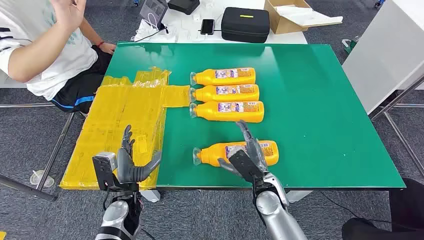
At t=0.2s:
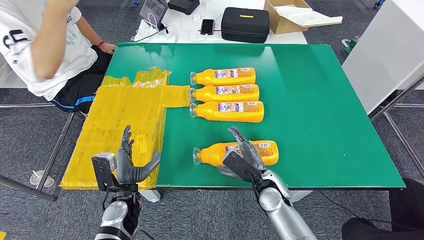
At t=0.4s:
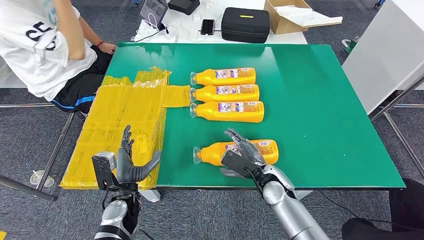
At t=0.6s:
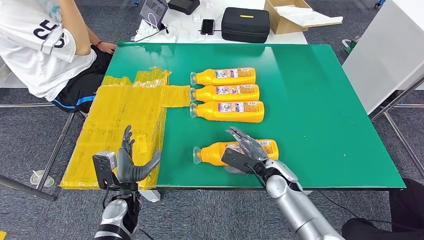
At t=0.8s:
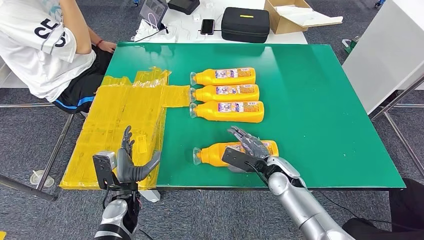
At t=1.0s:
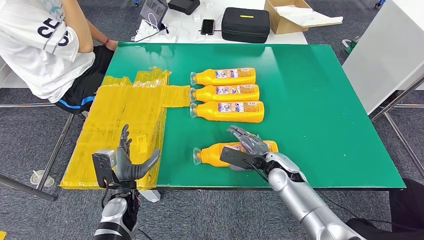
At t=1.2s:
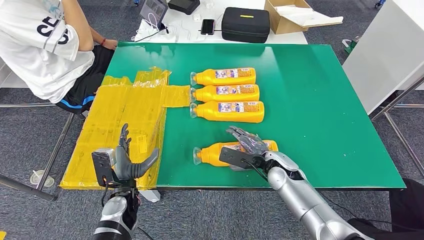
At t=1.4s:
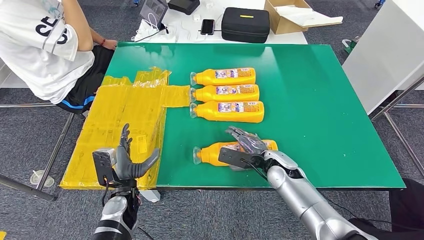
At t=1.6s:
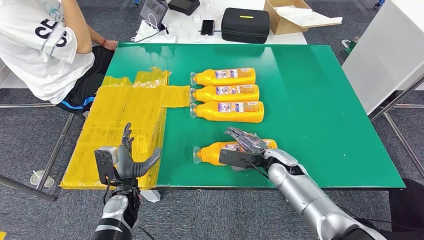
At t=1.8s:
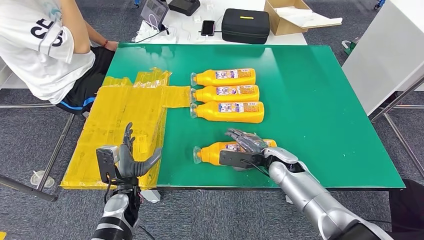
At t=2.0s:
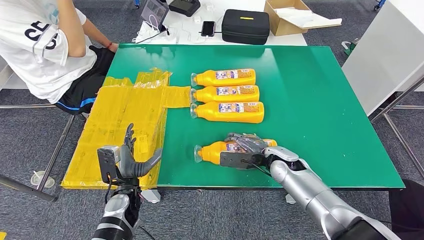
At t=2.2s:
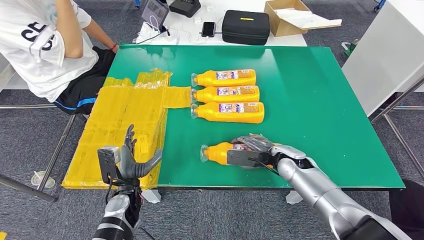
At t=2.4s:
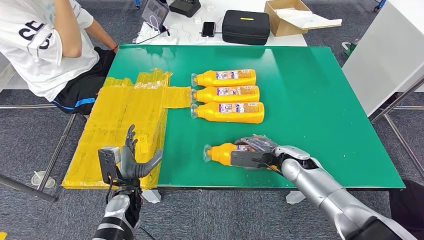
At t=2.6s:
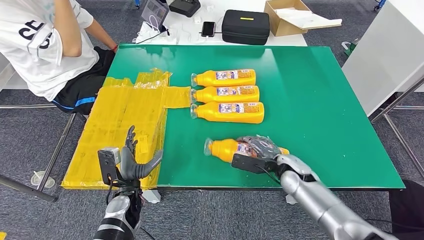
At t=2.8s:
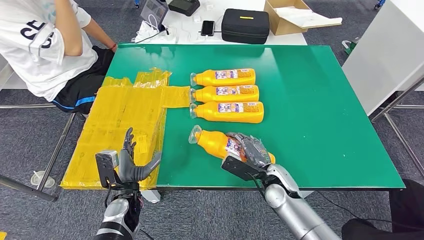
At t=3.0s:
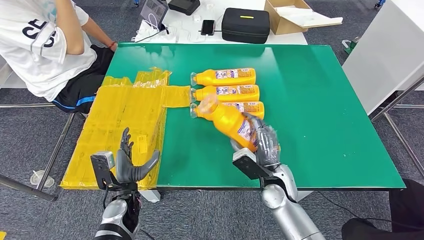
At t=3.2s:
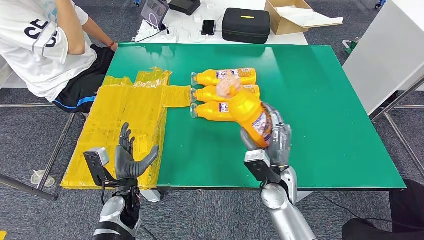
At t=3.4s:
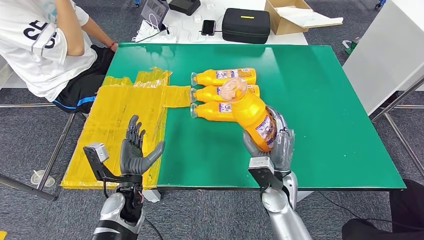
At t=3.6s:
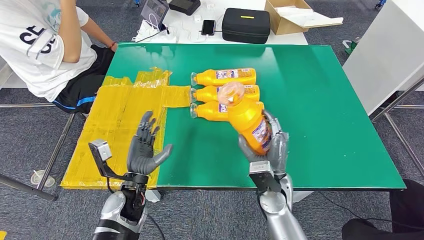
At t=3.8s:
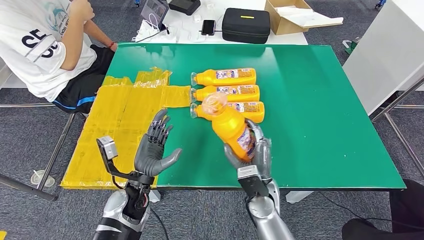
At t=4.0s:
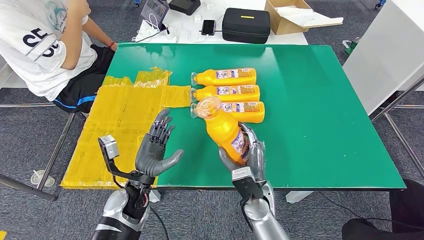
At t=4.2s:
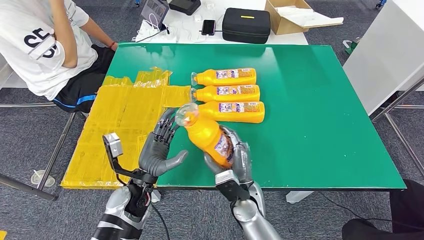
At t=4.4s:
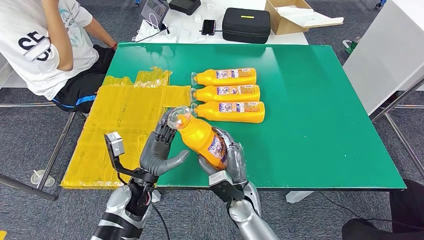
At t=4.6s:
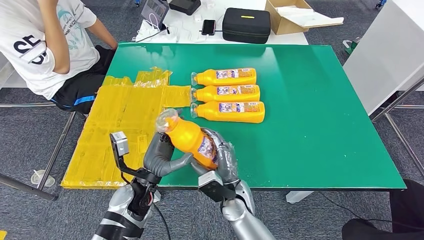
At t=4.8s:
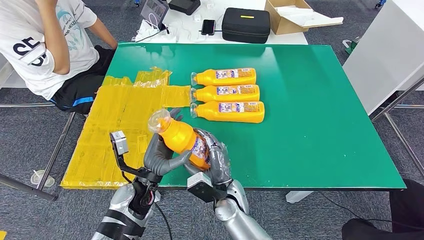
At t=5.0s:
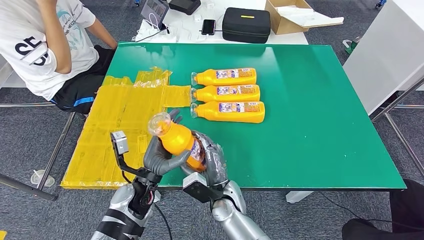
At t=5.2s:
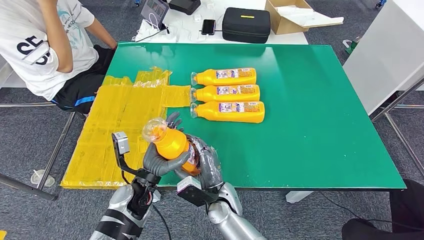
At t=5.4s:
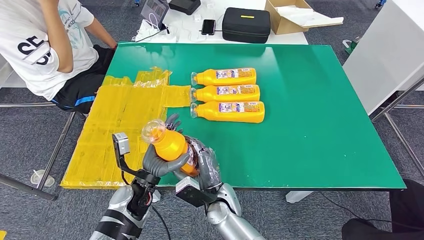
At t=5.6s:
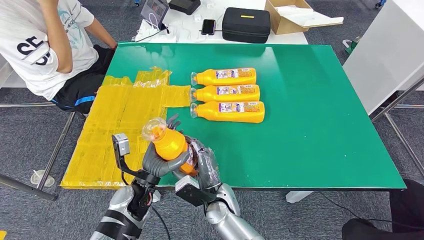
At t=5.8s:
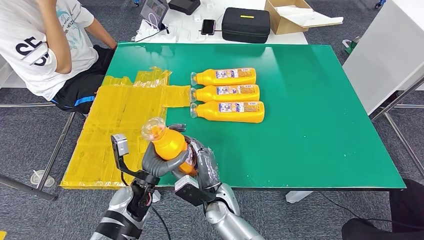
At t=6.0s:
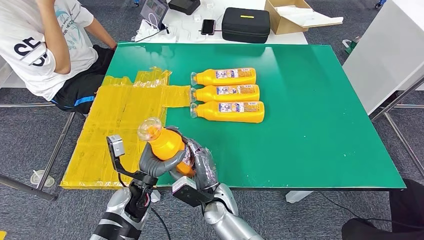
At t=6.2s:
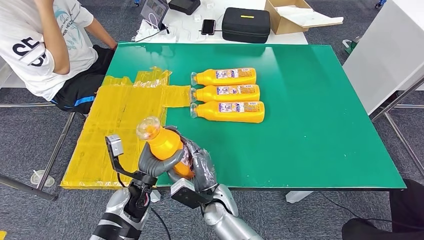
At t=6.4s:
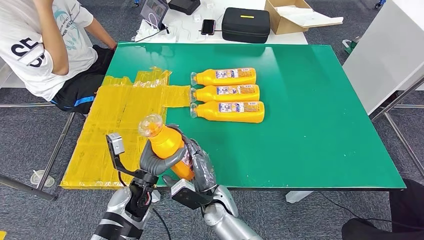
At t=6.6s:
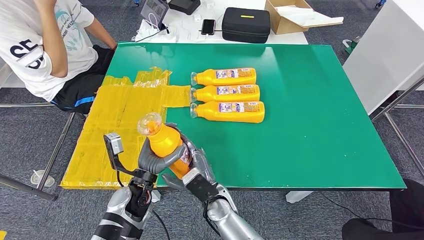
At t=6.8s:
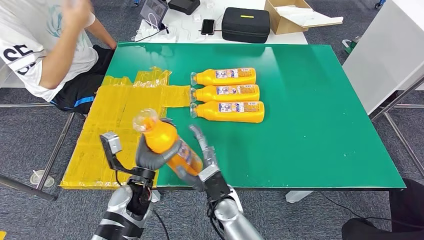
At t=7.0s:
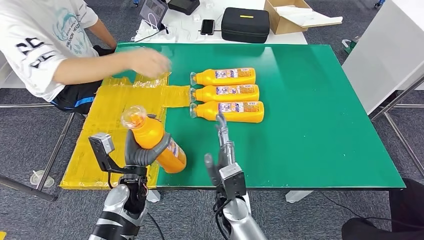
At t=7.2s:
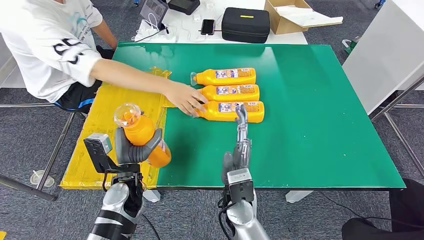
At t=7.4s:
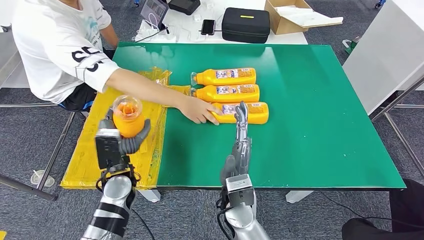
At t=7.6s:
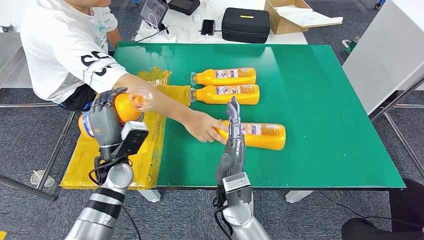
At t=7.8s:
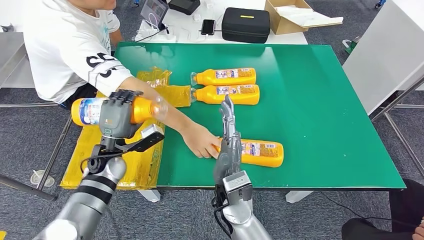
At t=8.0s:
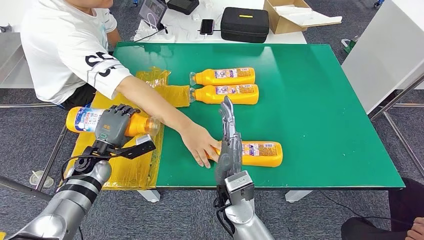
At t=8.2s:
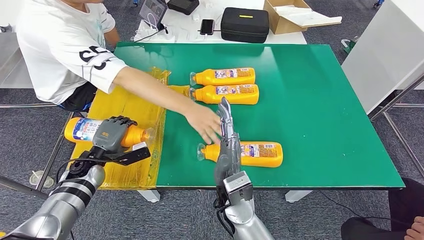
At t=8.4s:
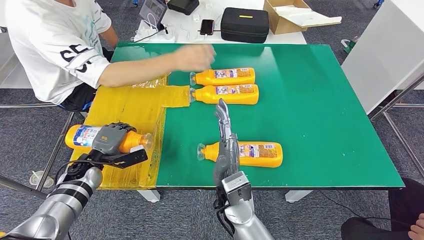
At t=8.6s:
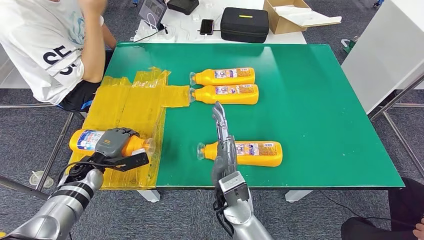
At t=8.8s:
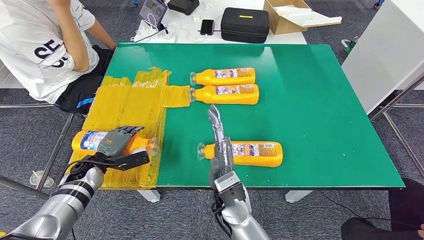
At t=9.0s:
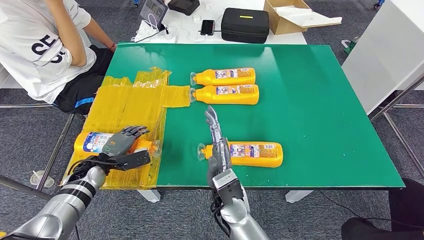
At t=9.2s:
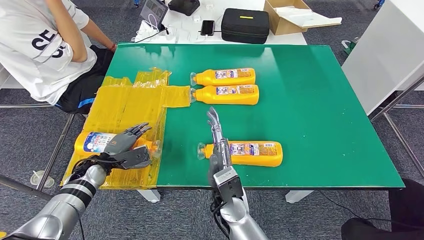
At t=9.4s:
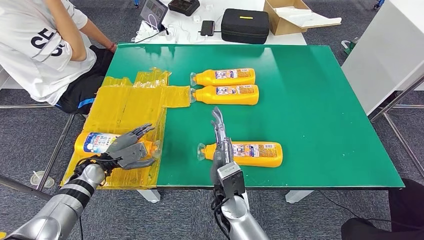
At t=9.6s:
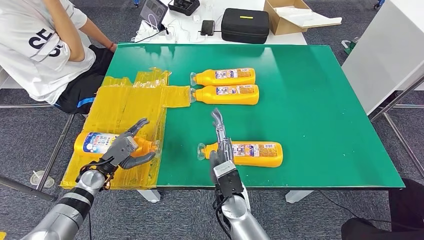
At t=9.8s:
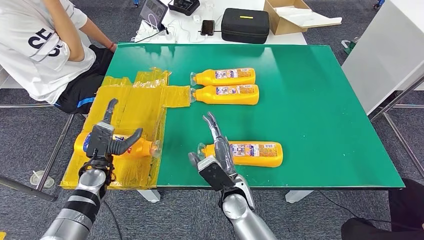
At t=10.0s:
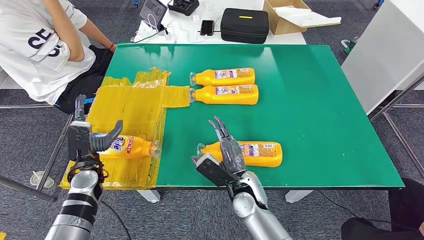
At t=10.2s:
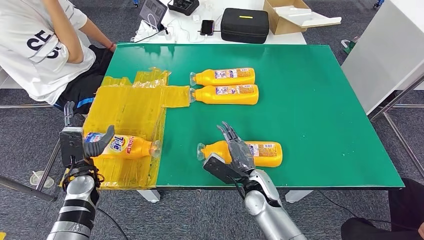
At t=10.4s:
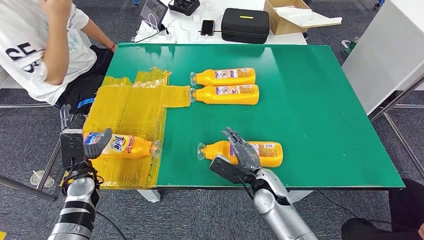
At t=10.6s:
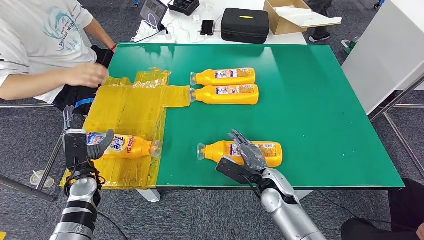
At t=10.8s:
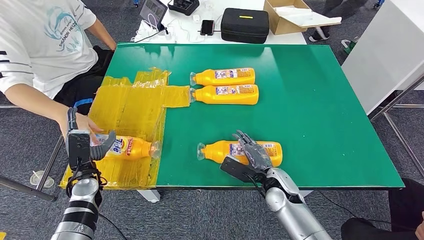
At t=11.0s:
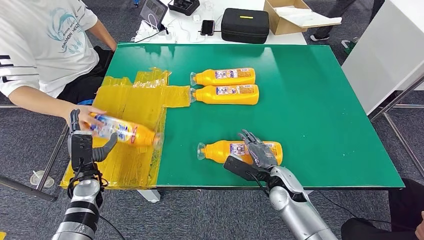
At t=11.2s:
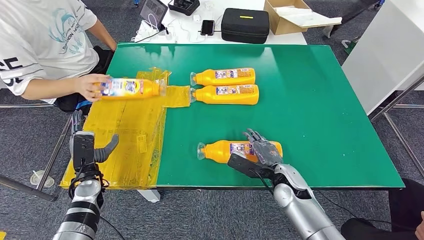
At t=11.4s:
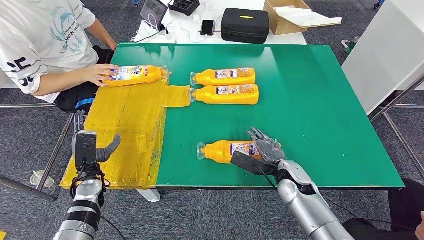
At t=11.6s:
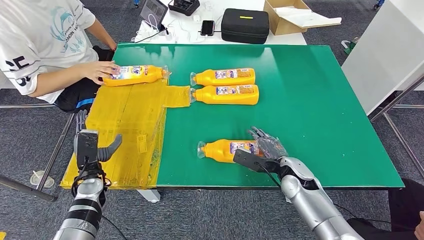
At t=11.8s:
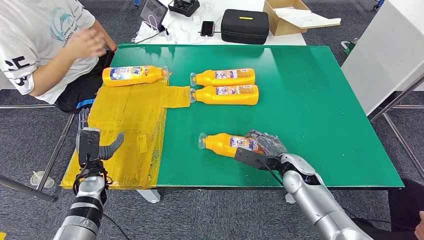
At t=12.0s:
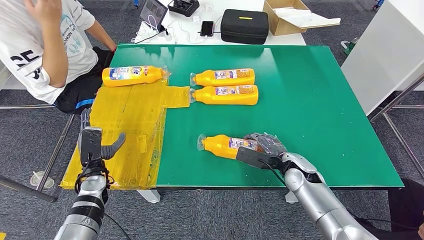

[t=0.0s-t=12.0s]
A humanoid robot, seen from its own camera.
Step, t=0.0s to t=3.2s: Take the fast-moving consumer goods bottle from the table.
Step, t=3.4s to t=10.0s: Flip the fast-moving consumer goods bottle to the front side.
t=1.6s to t=3.0s: The right hand moves backward, about 5 cm, and travels to the right and back again, some 5 cm each way.
t=3.0s to t=4.4s: The right hand shifts roughly 10 cm to the left; the left hand goes some 5 cm upward.
t=4.4s to t=6.0s: The right hand travels to the left by some 5 cm.
t=9.0s to t=10.4s: The right hand moves to the right, roughly 10 cm. Meanwhile the left hand ends up about 5 cm from where it was.

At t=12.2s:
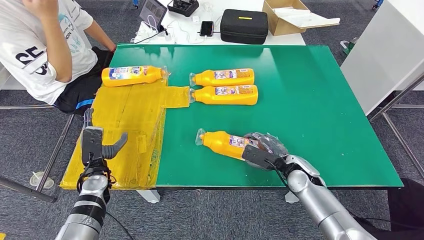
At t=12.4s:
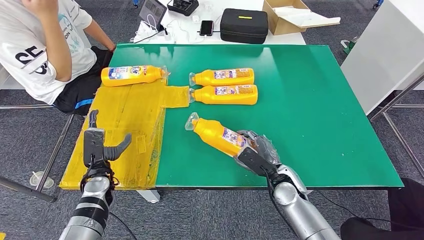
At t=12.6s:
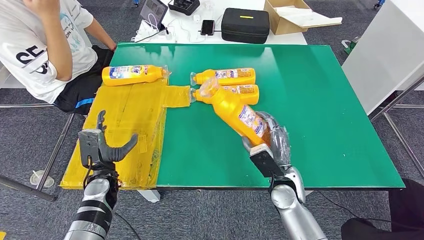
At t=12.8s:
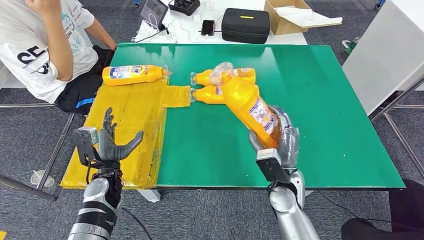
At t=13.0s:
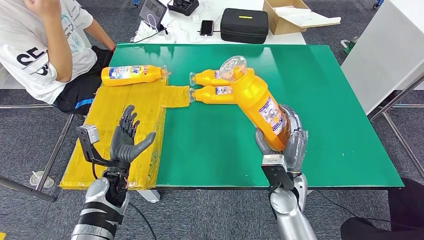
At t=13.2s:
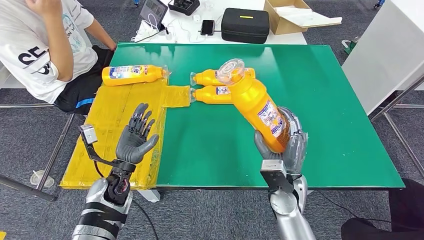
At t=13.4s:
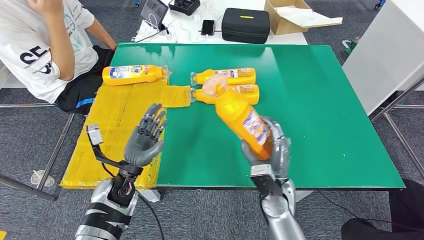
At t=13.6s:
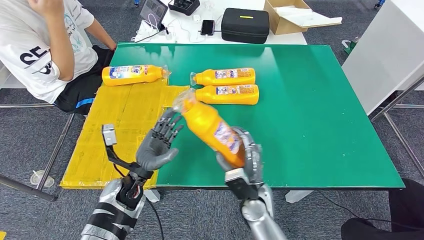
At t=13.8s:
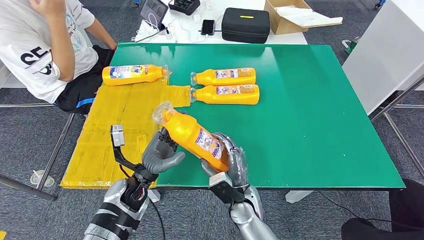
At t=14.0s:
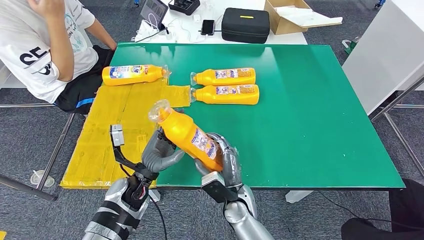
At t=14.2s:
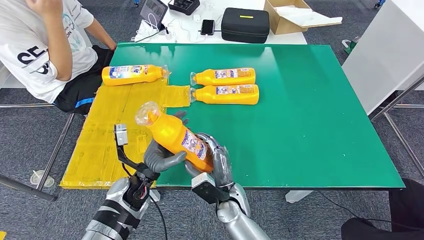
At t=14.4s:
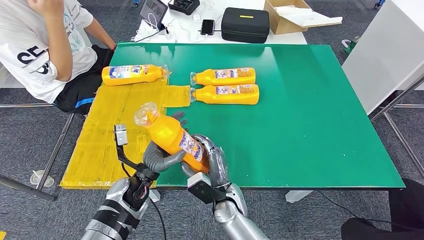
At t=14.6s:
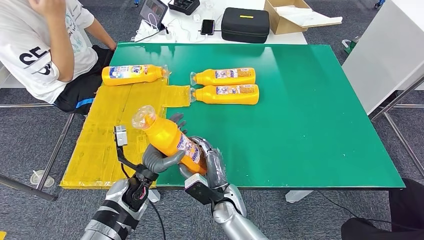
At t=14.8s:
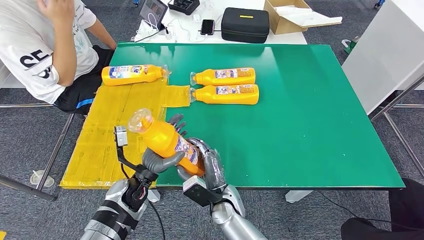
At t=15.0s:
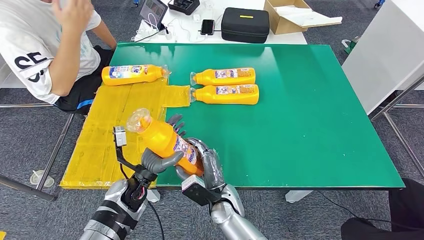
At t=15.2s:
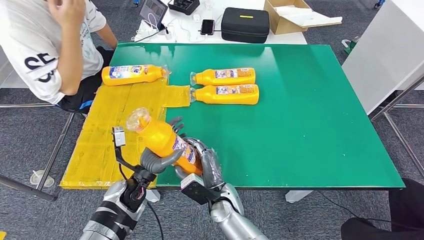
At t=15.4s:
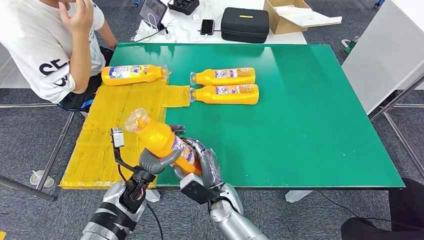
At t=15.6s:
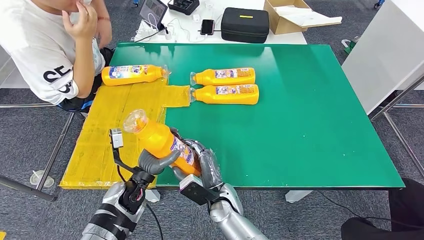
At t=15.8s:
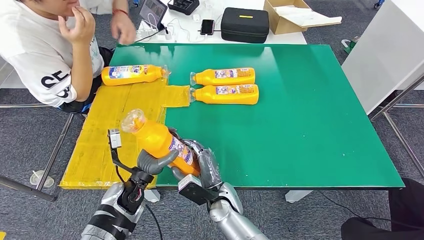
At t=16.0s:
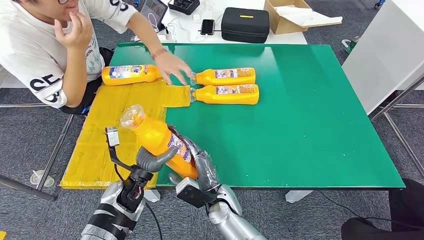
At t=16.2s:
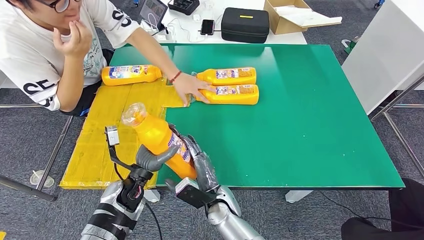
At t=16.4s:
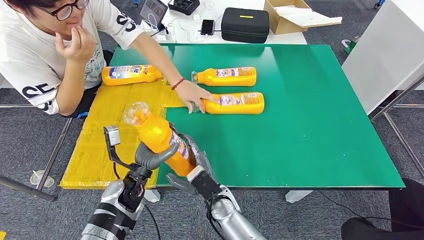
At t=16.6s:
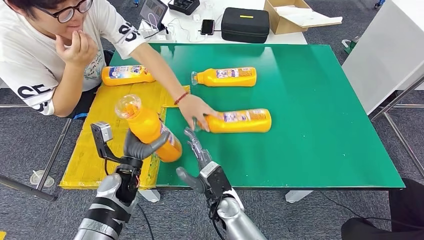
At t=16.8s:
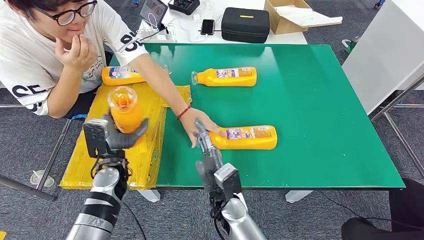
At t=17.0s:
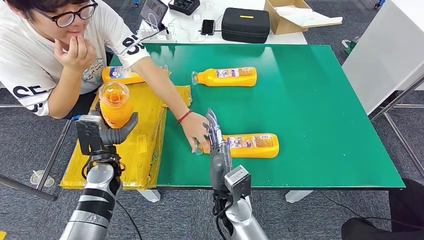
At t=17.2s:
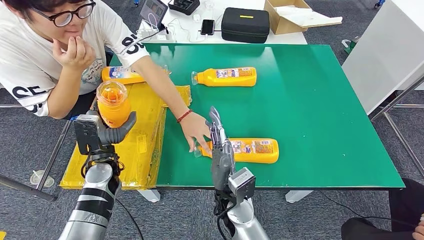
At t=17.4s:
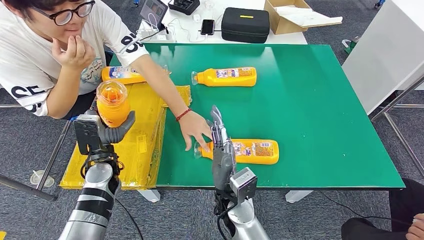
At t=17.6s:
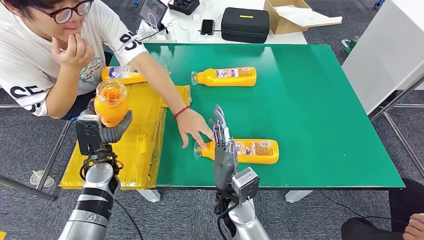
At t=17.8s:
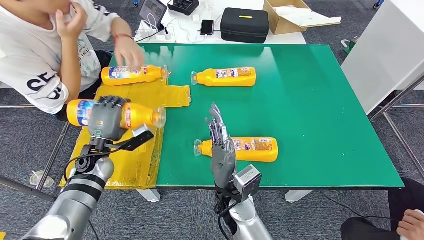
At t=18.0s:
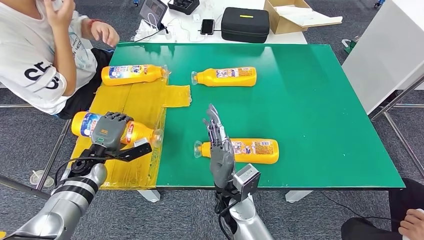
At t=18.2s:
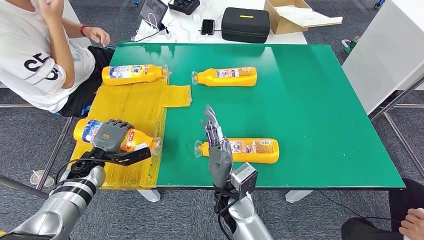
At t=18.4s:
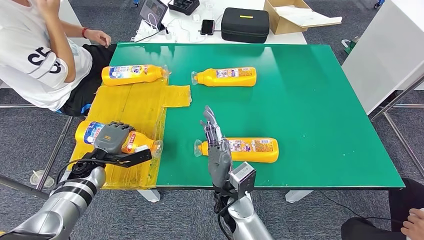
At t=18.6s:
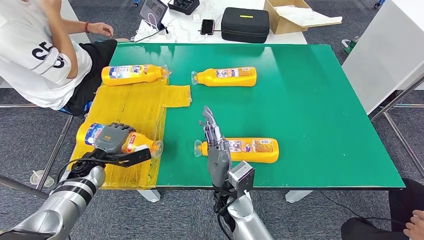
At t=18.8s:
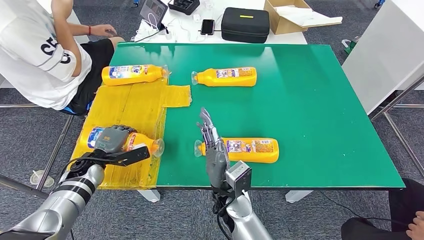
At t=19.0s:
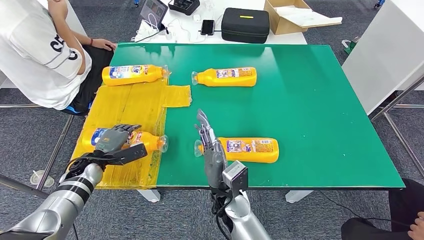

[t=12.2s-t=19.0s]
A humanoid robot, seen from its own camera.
t=13.6s to t=15.0s: The right hand is displaced to the left by some 10 cm.
t=15.0s to t=16.2s: The hands move only a little.
